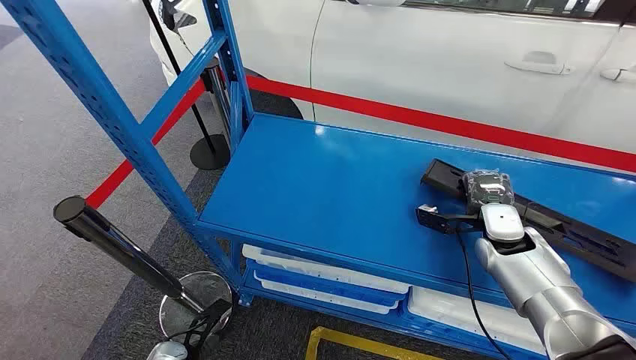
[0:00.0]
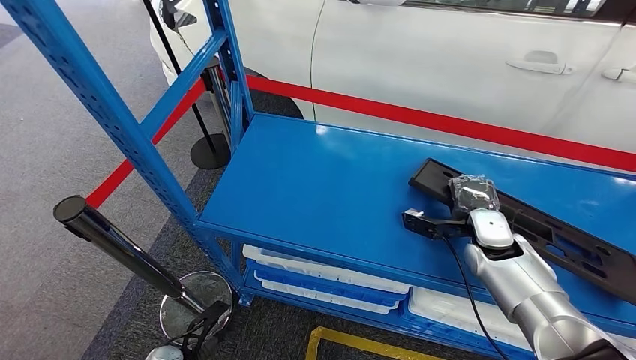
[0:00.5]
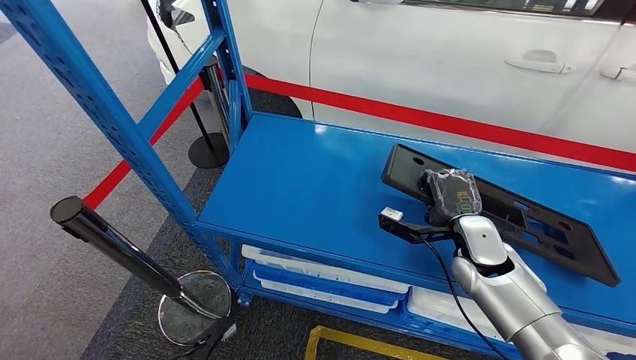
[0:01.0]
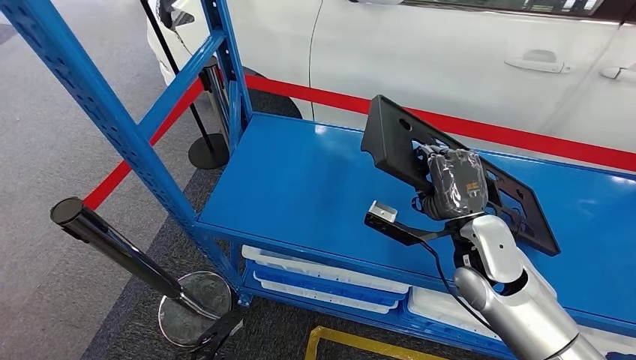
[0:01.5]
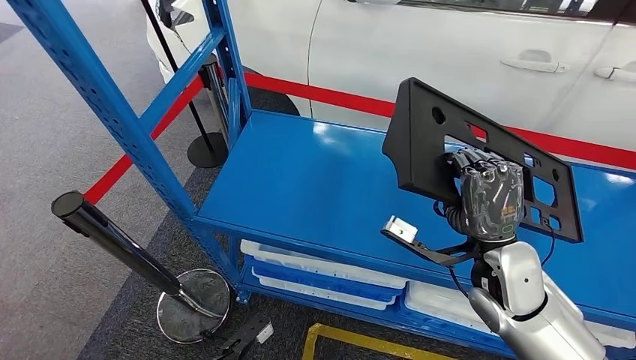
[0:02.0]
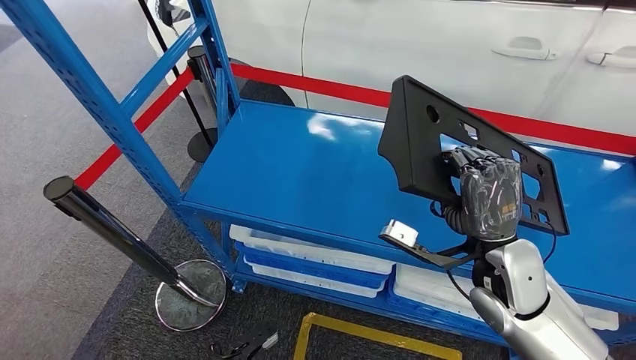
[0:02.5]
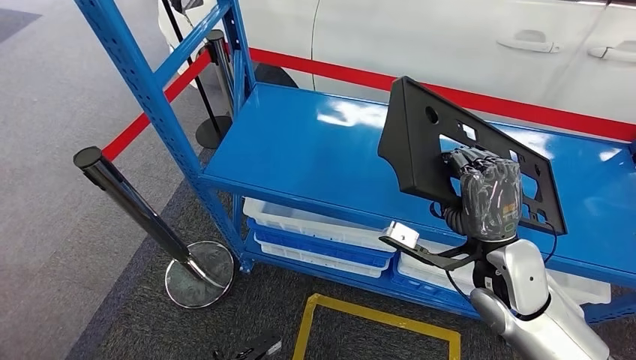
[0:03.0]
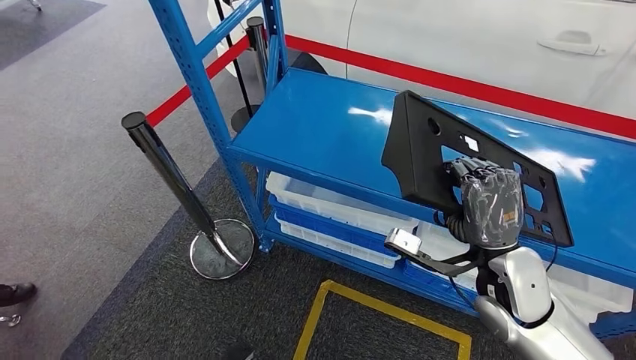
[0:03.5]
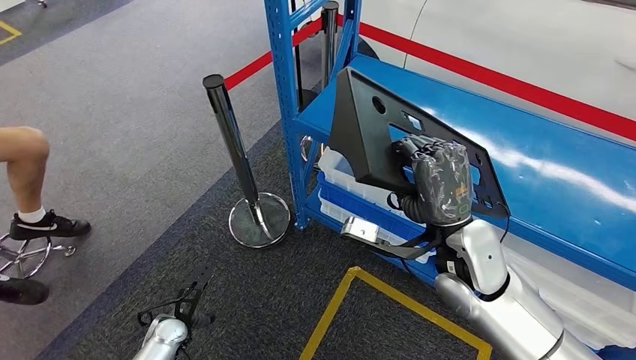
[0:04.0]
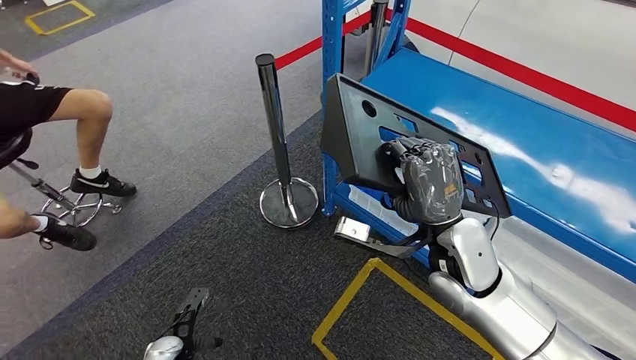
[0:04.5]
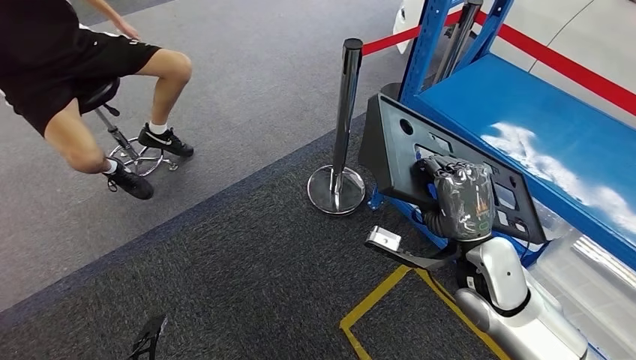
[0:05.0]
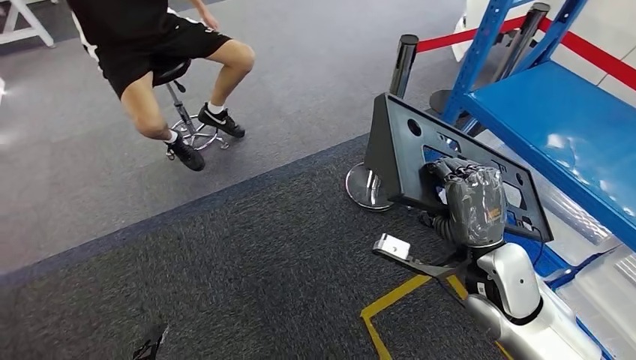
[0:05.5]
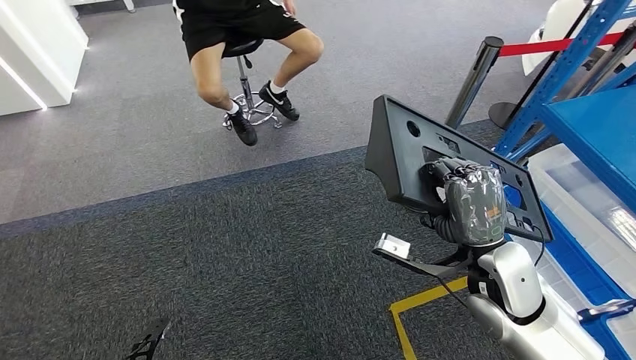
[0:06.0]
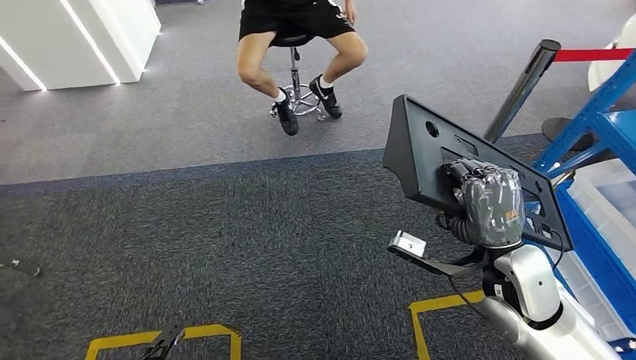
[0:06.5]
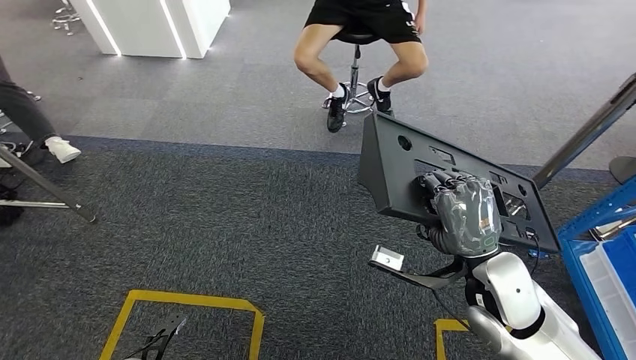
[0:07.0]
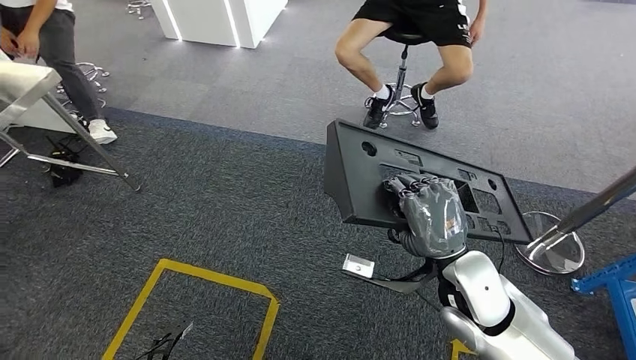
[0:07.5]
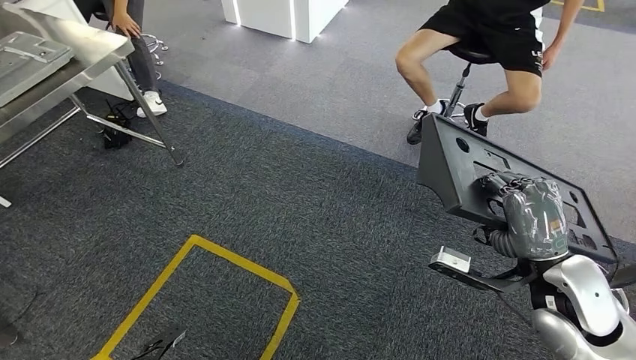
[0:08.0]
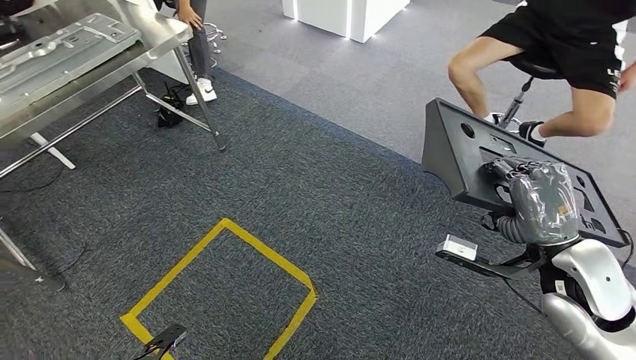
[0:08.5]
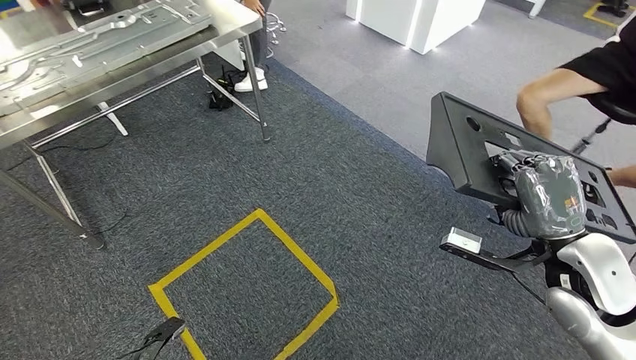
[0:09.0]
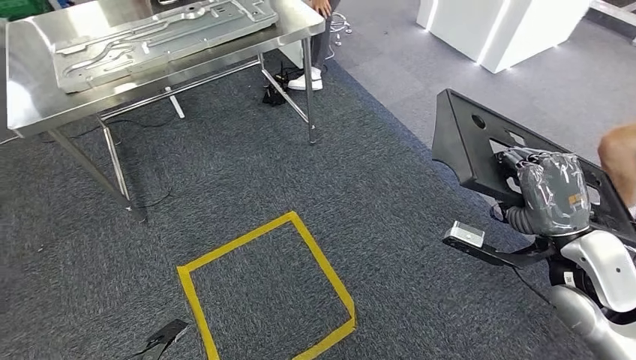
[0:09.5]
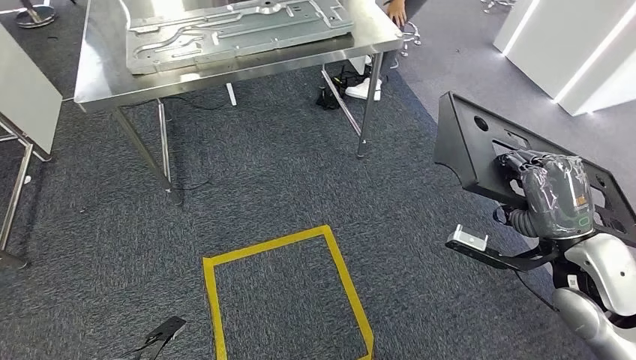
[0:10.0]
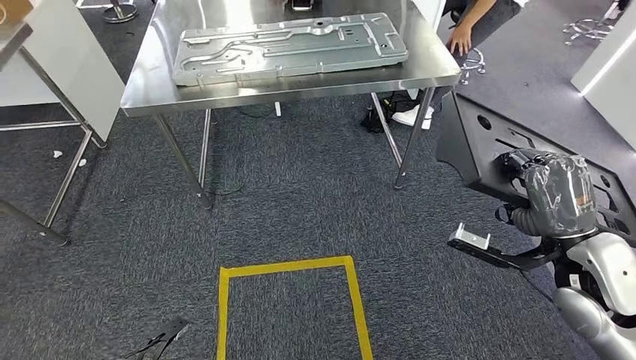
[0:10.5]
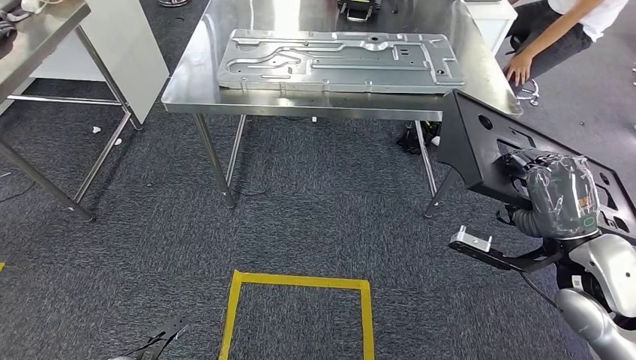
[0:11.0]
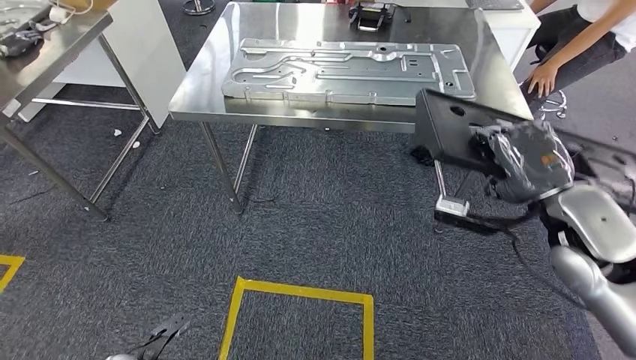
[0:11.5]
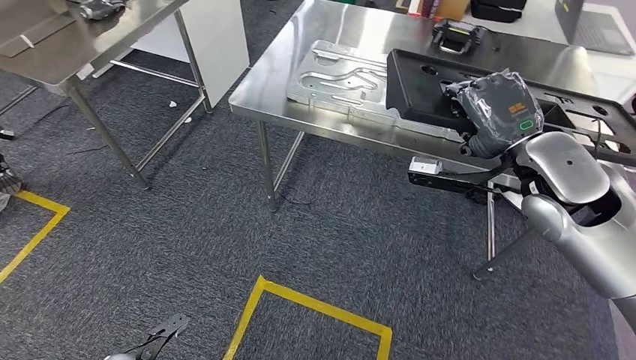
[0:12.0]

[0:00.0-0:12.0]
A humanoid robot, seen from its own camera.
Step, 0:00.0 to 0:03.5: Pick up the large material from the shelf.

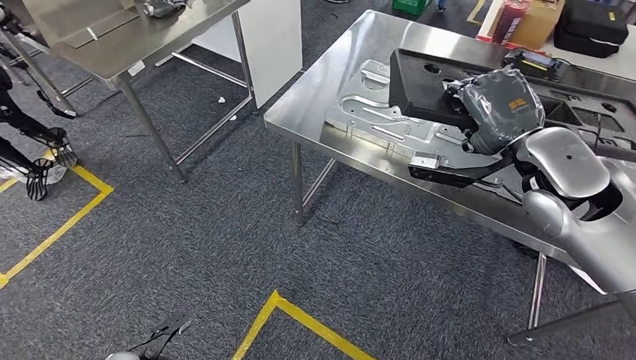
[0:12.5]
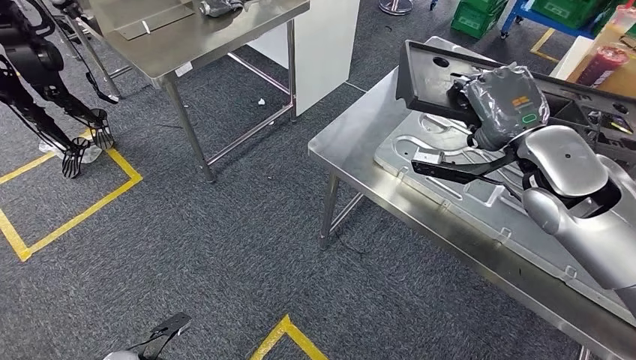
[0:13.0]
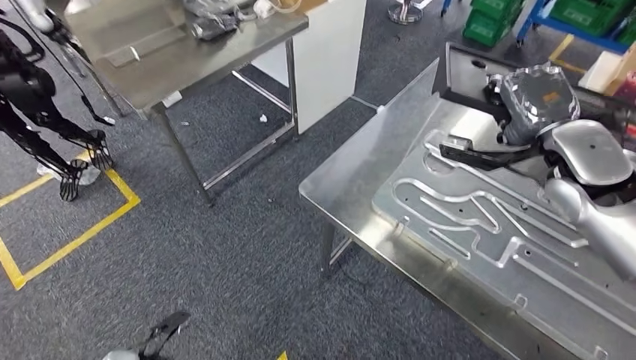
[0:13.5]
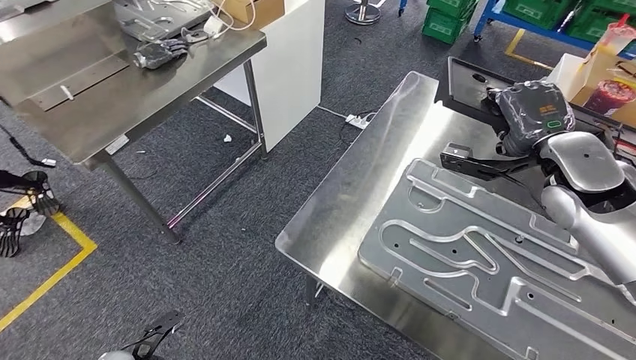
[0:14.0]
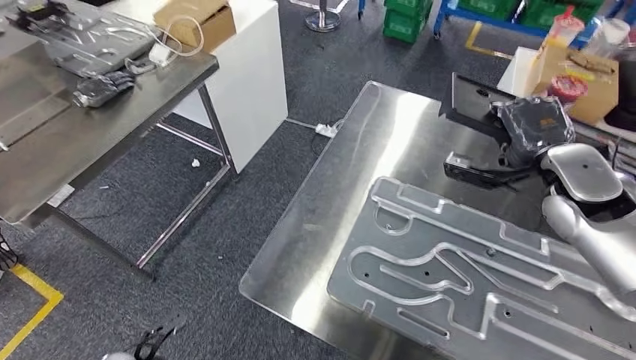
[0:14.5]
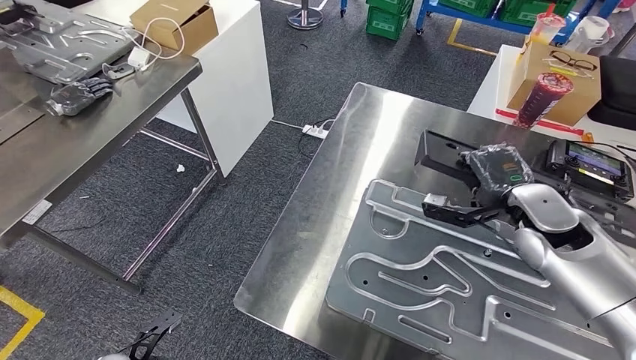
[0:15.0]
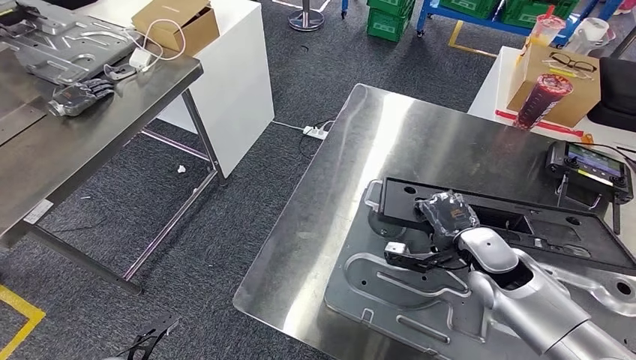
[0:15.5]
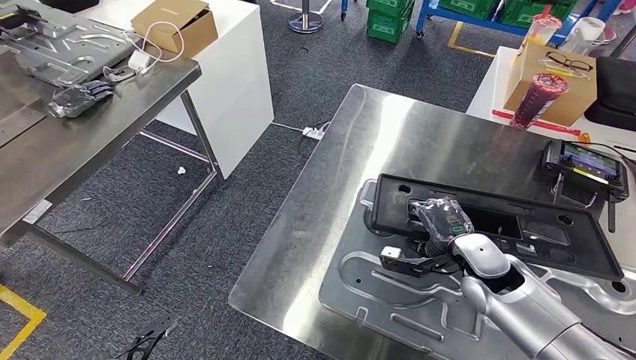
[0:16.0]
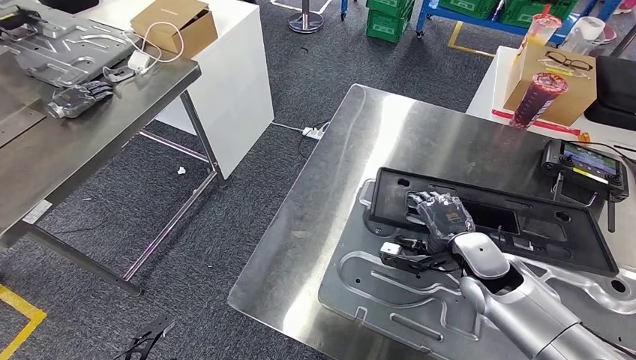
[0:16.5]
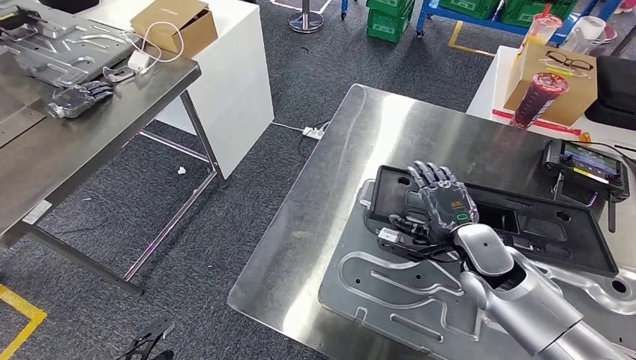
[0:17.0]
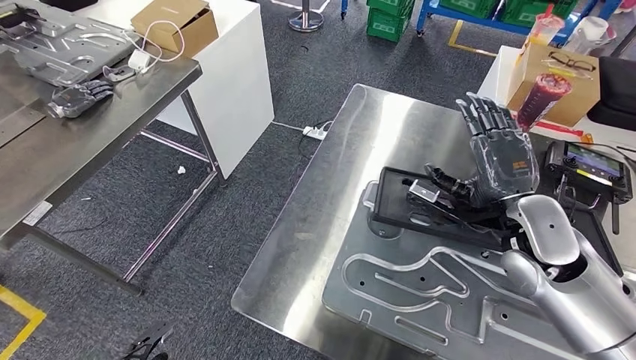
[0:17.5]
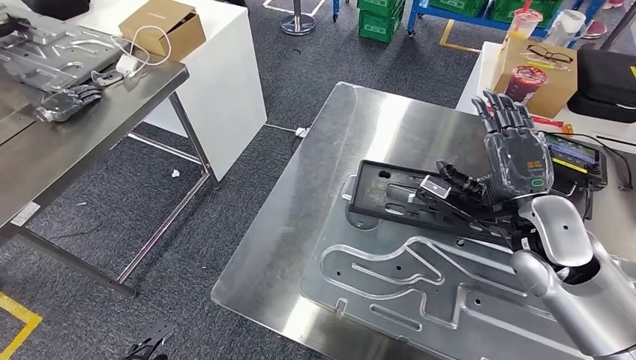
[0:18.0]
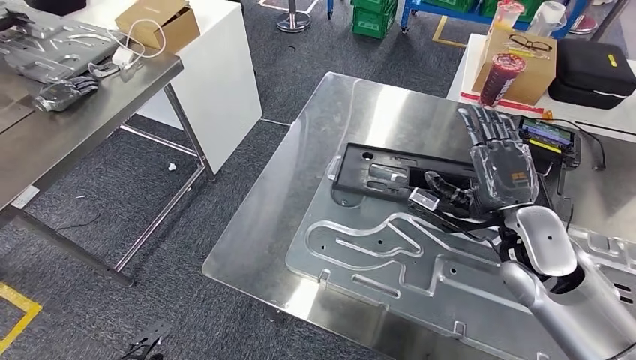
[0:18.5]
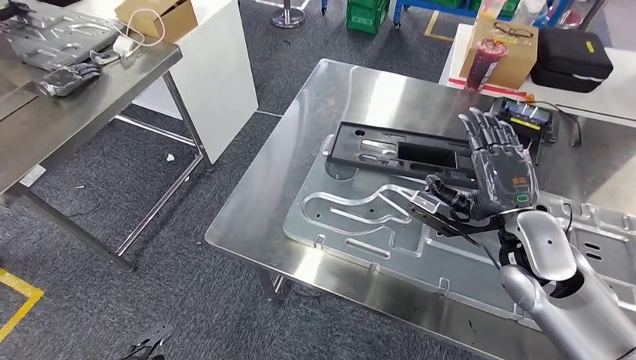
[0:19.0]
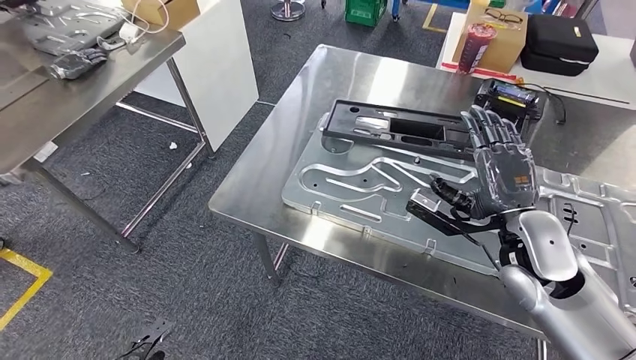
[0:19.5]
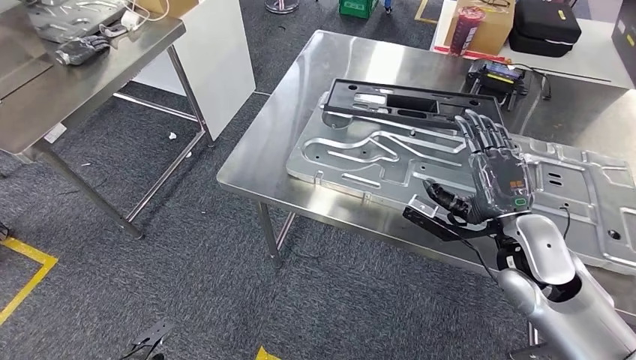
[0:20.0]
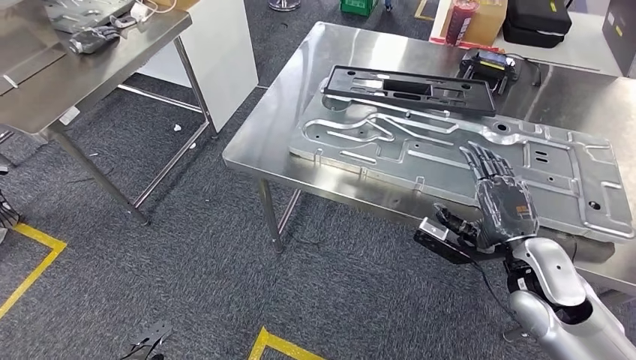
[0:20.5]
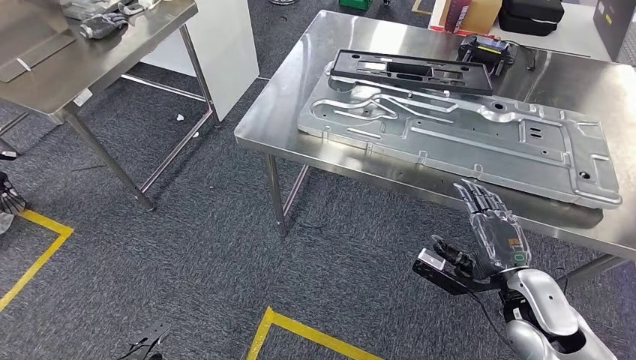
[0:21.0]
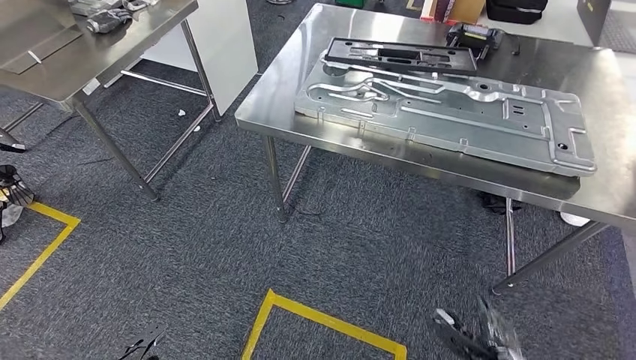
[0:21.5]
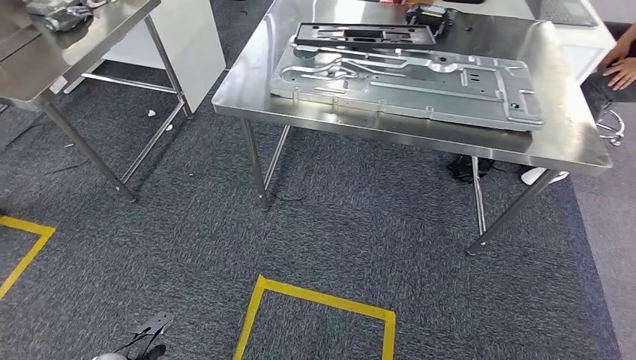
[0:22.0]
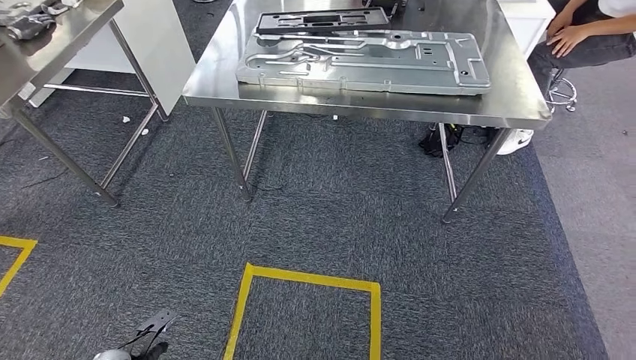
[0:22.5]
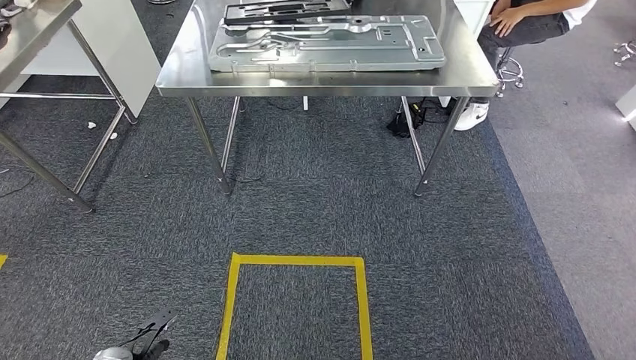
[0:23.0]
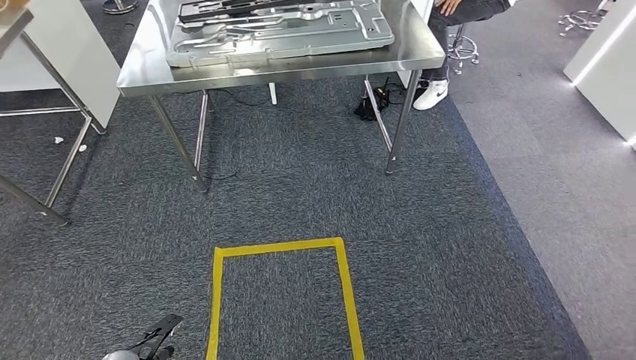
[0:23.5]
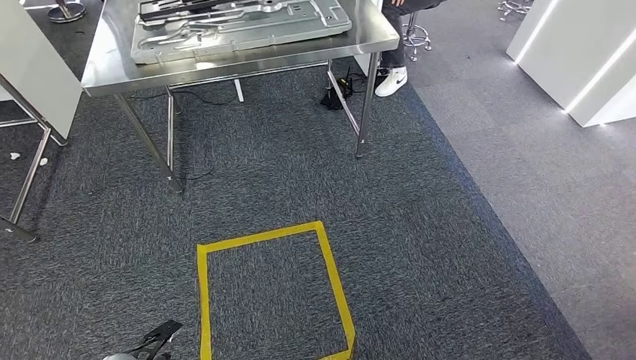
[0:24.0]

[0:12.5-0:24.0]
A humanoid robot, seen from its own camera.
Step, 0:14.5 to 0:18.5: Insert the large material into the corresponding slot on the workbench.
